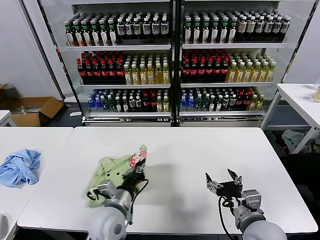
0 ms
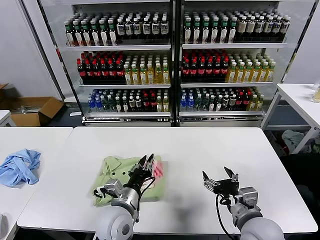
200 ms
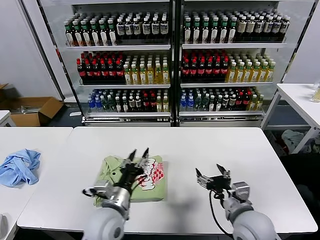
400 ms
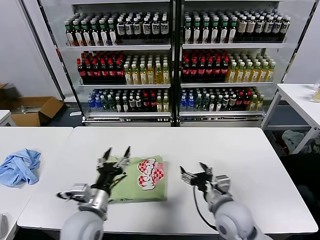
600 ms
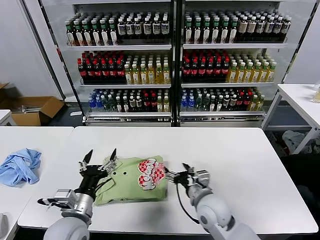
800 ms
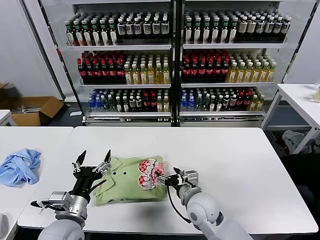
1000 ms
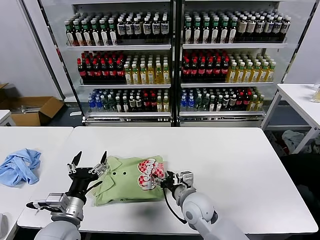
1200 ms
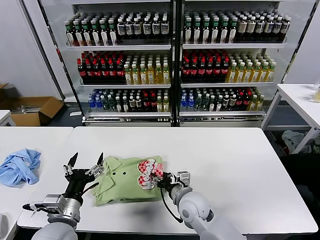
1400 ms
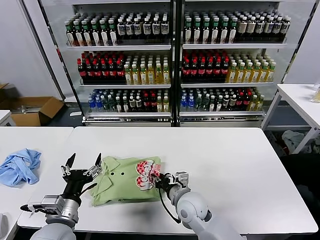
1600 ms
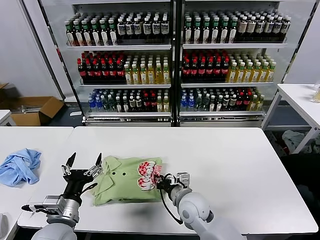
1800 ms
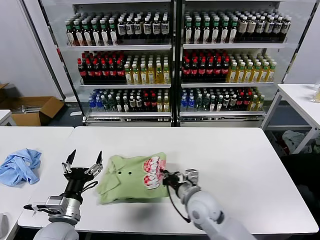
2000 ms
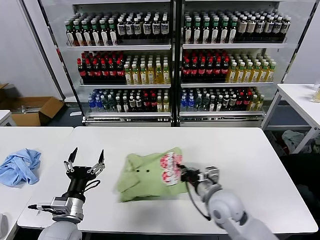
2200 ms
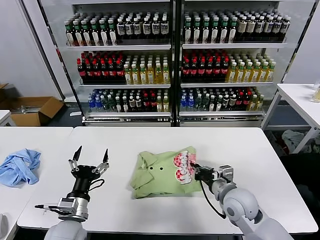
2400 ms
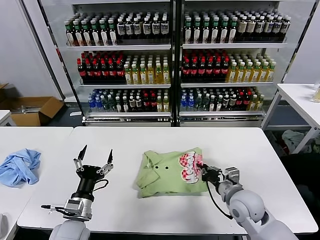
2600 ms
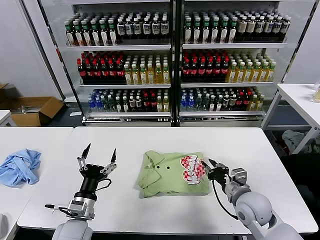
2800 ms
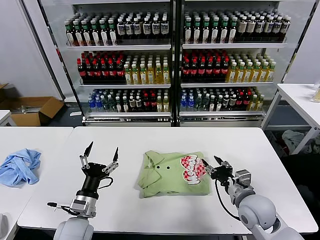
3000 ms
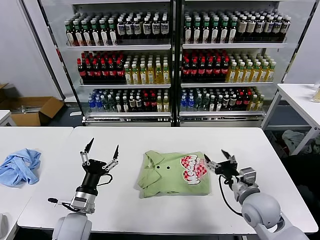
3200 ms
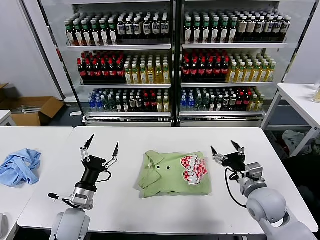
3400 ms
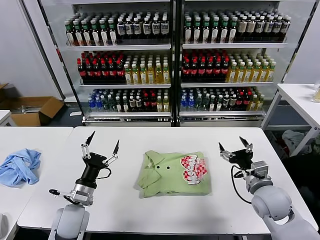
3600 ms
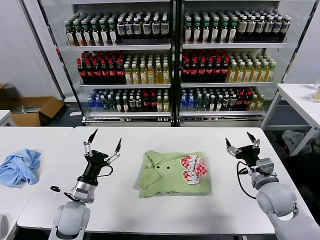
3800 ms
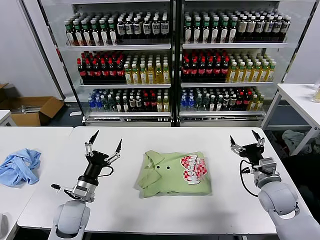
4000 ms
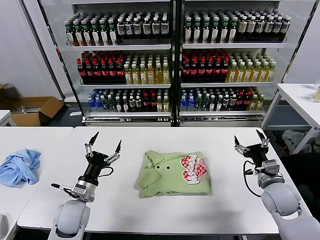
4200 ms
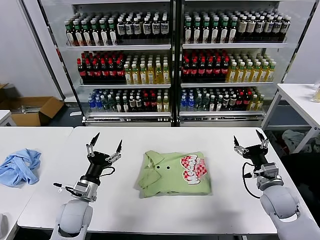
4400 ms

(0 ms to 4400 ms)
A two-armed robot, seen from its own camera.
Task of the whole recording: fold and organize the clothes.
Step, 400 ms - 2800 ms: Drag the clothes to the center of the table.
0 ms - 1400 ms: The right gripper heads to the left, forward and downward, covering some 20 cm, while the left gripper goes about 10 cm to the left, and opens up.
1400 ms - 3000 ms: The right gripper goes approximately 15 cm to the right, and closes, then opens again; the left gripper travels downward by roughly 5 cm.
3000 ms - 4400 ms: The left gripper travels forward by some 5 cm; the right gripper heads to the right, covering roughly 10 cm, and opens.

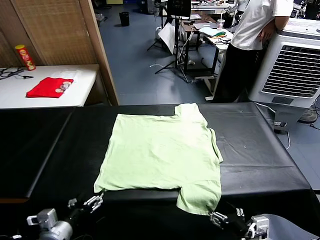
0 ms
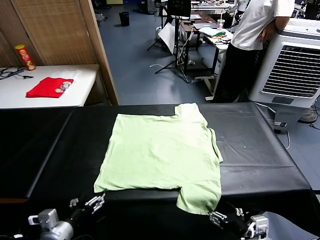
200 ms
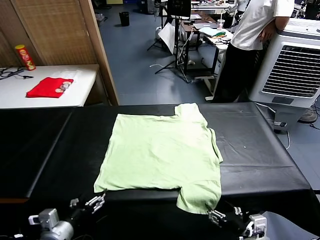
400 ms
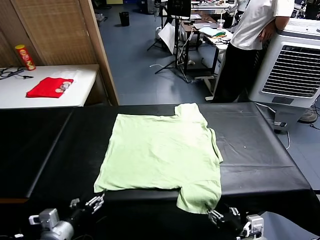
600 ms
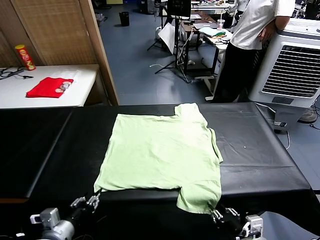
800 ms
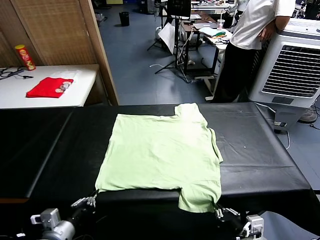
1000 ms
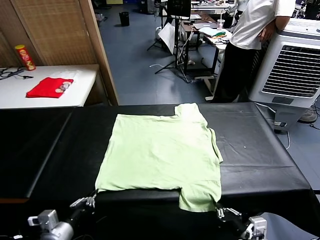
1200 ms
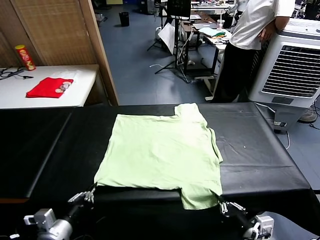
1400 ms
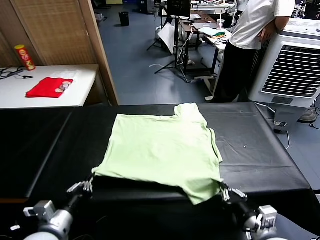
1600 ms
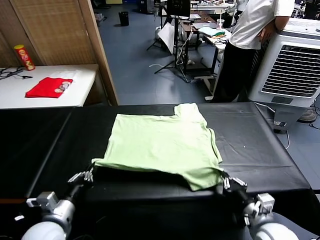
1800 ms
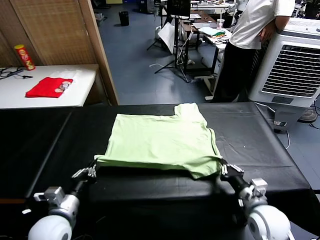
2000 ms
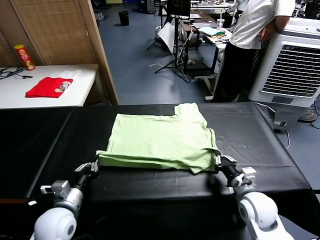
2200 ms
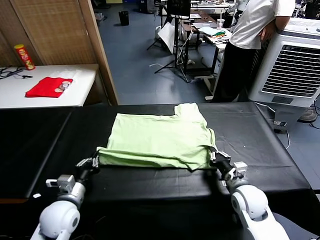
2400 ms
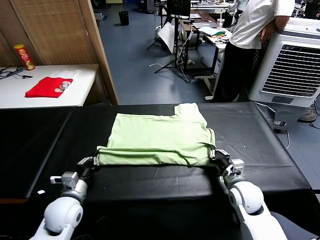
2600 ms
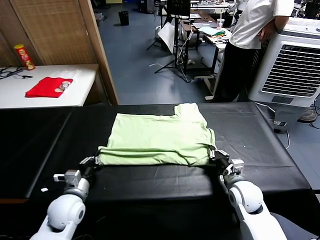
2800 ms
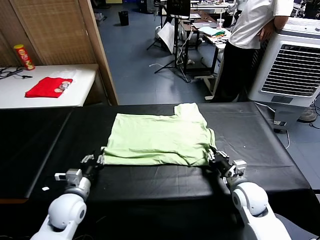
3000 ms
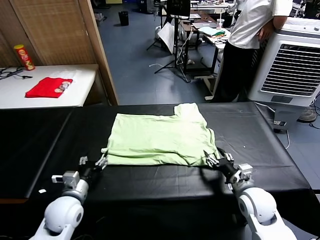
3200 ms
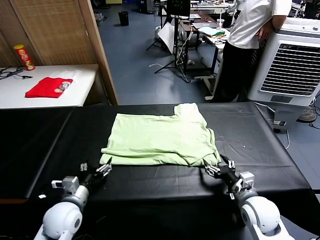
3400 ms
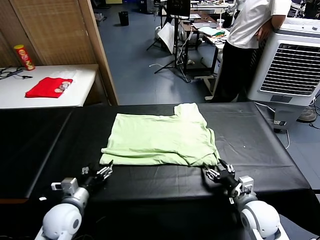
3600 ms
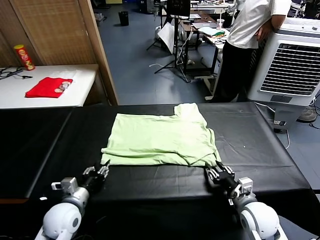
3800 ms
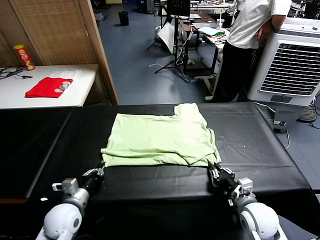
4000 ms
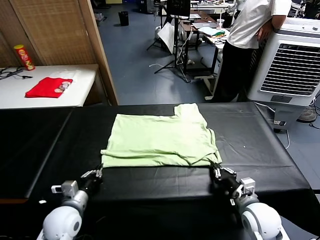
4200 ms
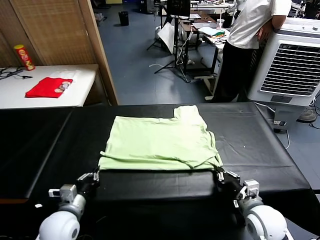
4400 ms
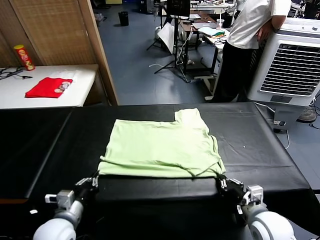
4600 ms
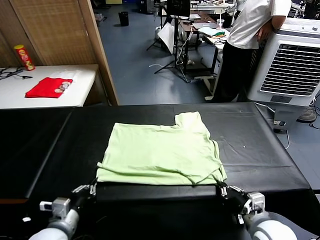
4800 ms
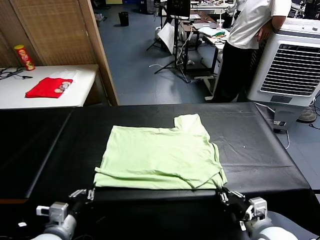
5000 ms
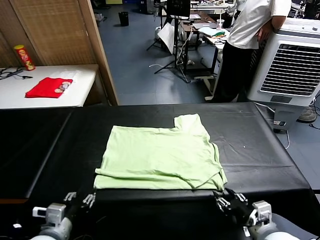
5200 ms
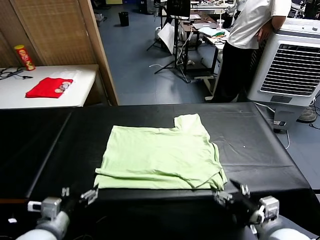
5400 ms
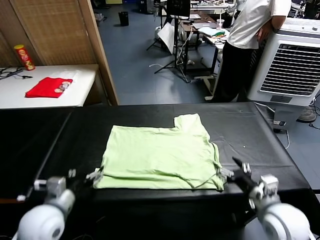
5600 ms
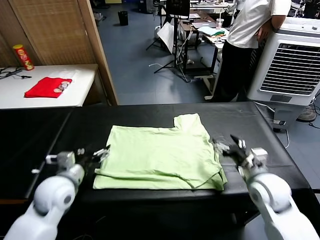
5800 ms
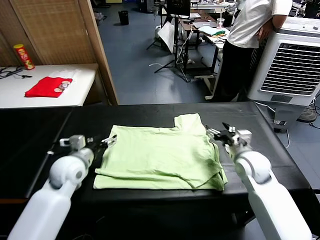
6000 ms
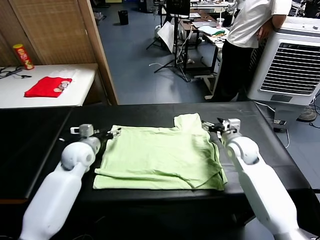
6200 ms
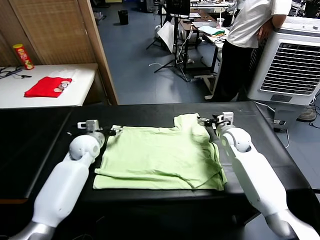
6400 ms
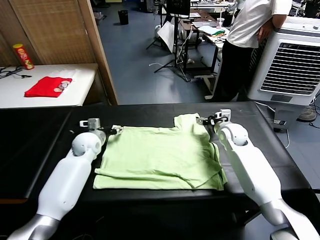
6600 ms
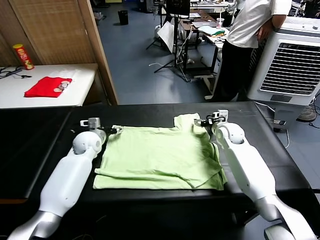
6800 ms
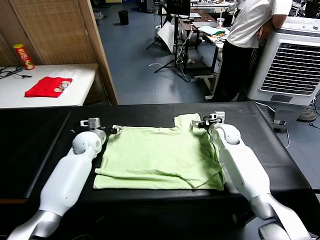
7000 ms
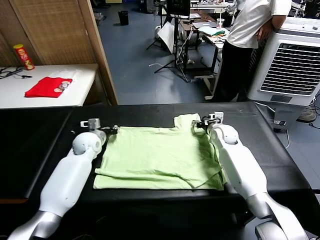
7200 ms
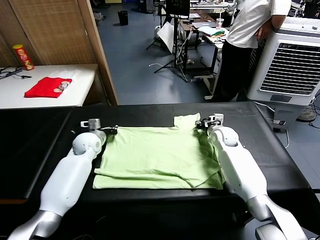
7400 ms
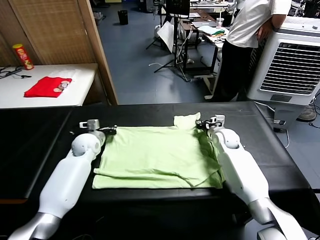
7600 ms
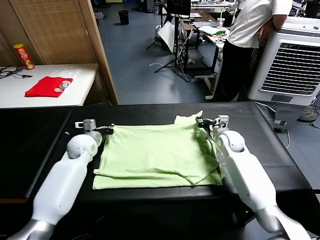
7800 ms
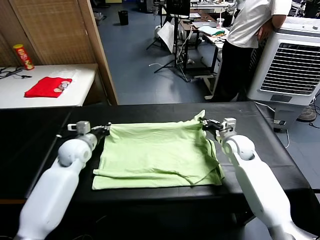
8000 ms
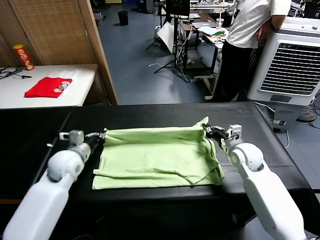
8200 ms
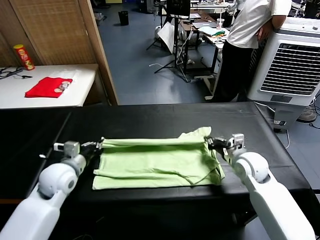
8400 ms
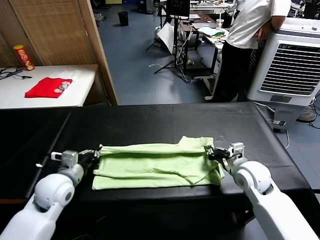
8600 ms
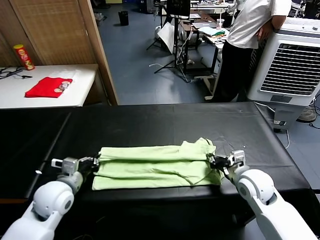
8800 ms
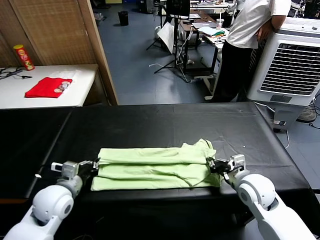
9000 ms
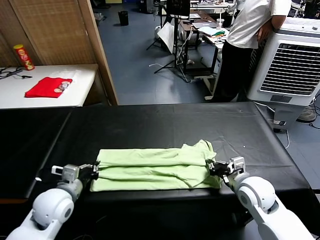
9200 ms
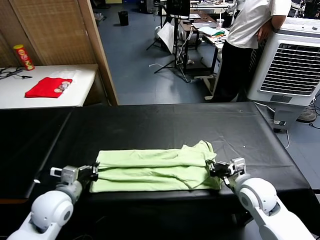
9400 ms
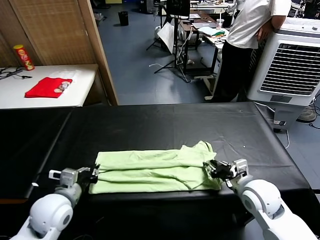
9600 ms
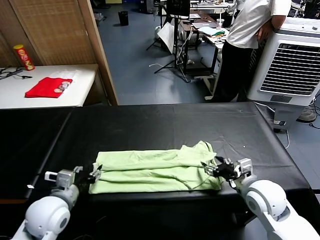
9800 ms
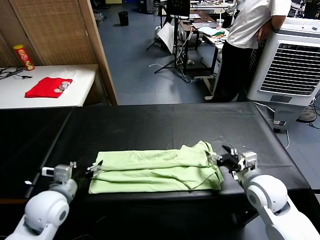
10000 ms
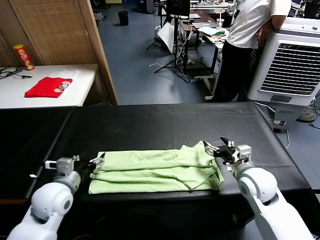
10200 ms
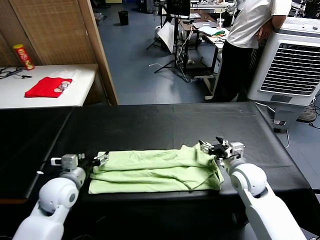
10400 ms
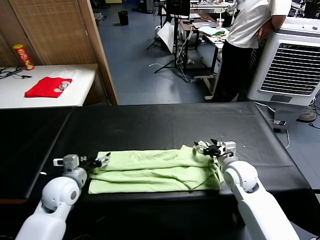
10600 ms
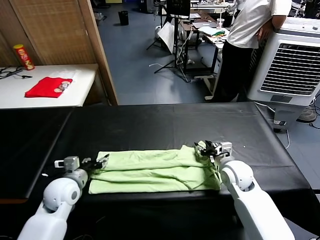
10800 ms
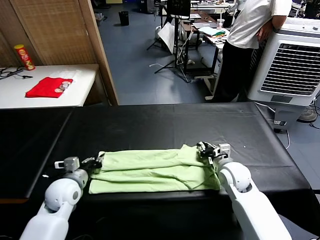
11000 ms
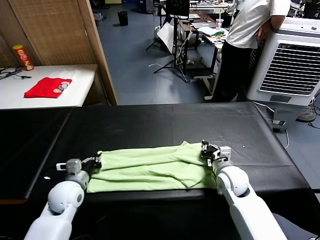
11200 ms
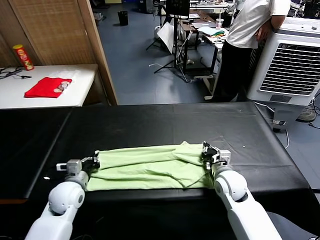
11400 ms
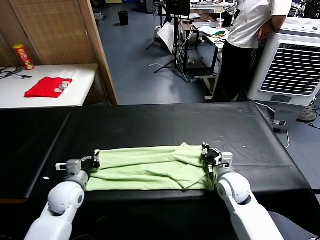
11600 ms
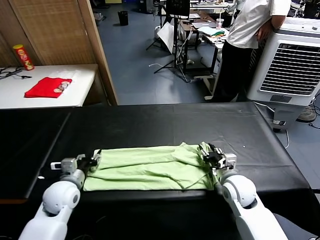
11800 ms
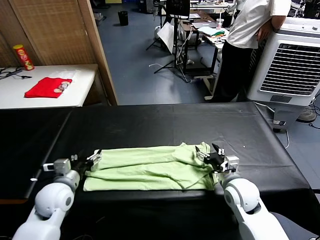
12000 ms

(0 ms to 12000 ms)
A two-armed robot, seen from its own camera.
Task of the whole recording: fold and organize the clothes.
Step, 0 ms - 1000 ms: use both grippers simultaneously to clamp the lower edge of the clothing fabric.
Step, 1200 ms - 3000 ms: use both grippers to drag the lower edge of the fabric forward and fold it over the upper edge.
Step, 3200 ms - 5200 ms: Drag the clothes downward with both gripper.
Step, 5400 ms - 7400 ms: use both grippers simultaneously to clamp the upper edge of the clothing fabric.
Step, 7600 ms - 9600 ms: use both grippers to drag the upper edge of the fabric backward and fold it over the lower edge.
1600 ms - 3000 ms: Both grippers move forward, about 10 cm. The left gripper opens, while the right gripper opens up.
3000 ms - 4400 ms: The two grippers go approximately 5 cm backward. The right gripper closes. Meanwhile the left gripper closes its fingers.
4400 ms - 6000 ms: The right gripper is displaced forward by about 20 cm, and opens its fingers. The left gripper travels forward and upward by roughly 20 cm, and opens.
6000 ms - 7600 ms: The left gripper travels forward by about 10 cm, and closes; the right gripper travels forward and downward by roughly 10 cm, and closes up.
7600 ms - 9000 ms: Both grippers travel together backward, approximately 20 cm.
9000 ms - 10400 ms: The right gripper is displaced forward by roughly 5 cm, and opens its fingers. The left gripper opens its fingers.
10400 ms - 12000 ms: The left gripper closes, then opens again. Meanwhile the right gripper moves about 5 cm, and closes, then opens again.

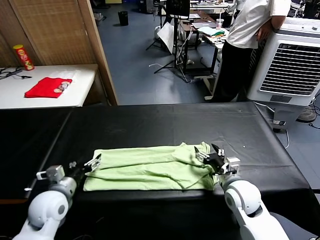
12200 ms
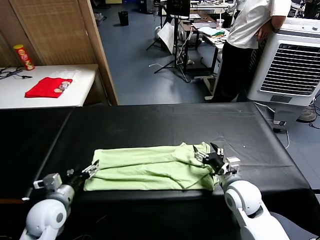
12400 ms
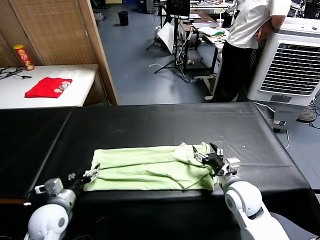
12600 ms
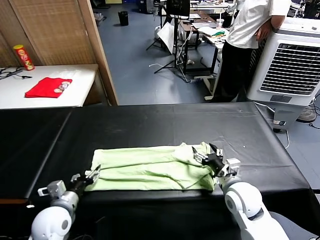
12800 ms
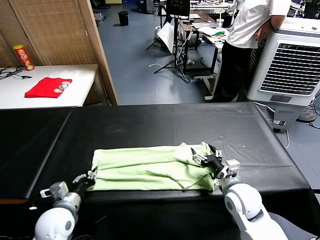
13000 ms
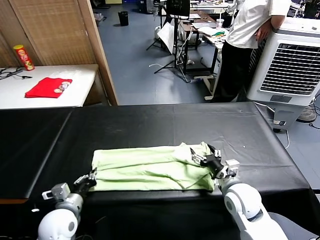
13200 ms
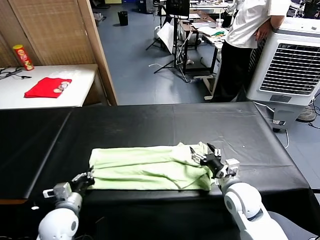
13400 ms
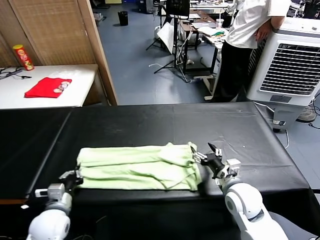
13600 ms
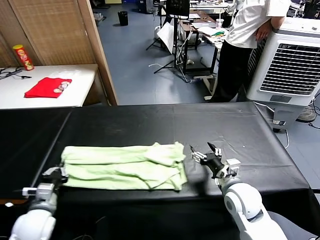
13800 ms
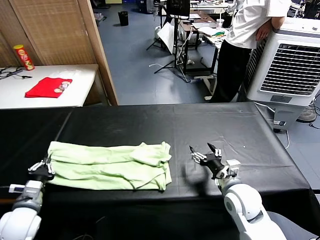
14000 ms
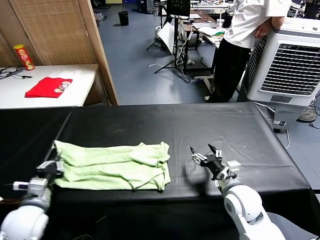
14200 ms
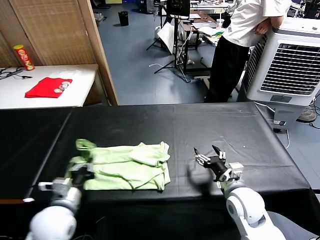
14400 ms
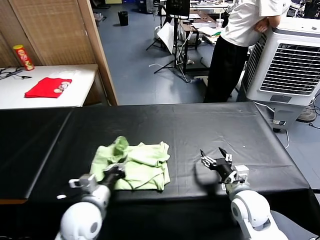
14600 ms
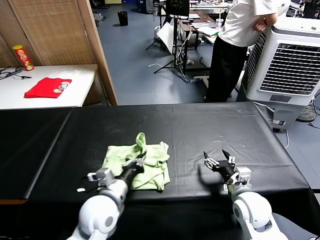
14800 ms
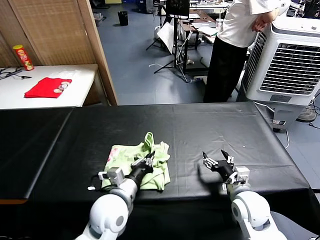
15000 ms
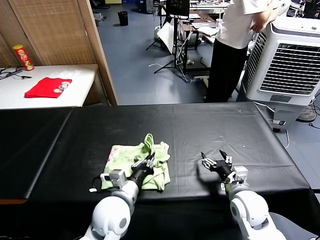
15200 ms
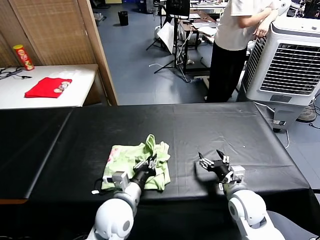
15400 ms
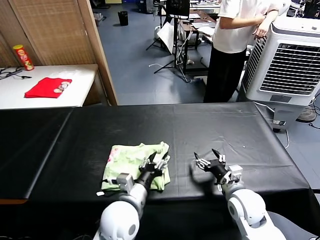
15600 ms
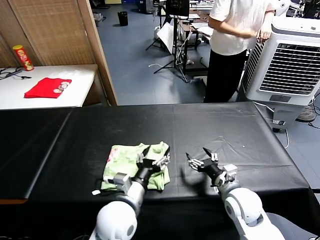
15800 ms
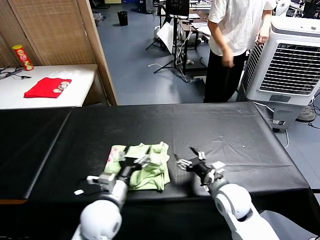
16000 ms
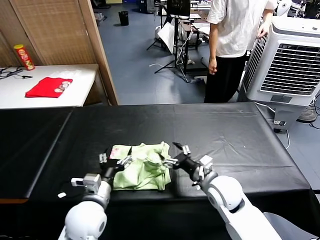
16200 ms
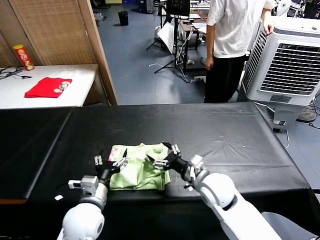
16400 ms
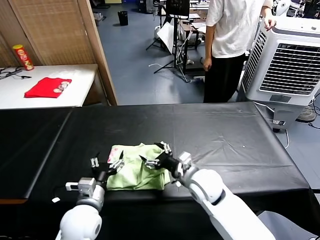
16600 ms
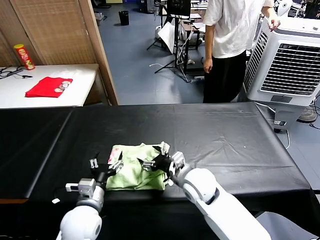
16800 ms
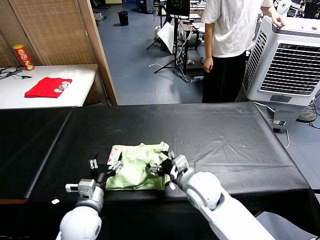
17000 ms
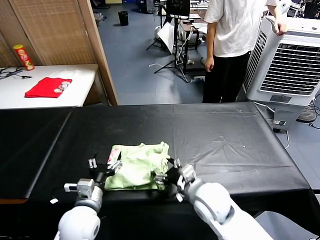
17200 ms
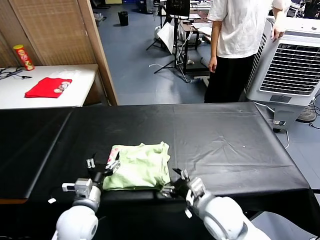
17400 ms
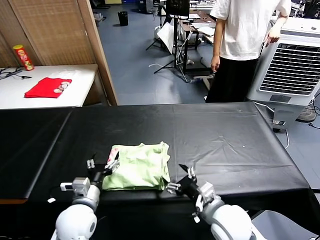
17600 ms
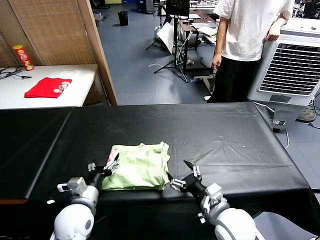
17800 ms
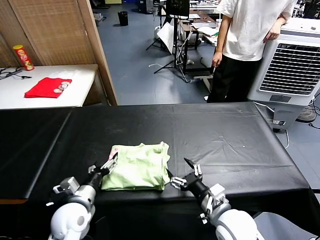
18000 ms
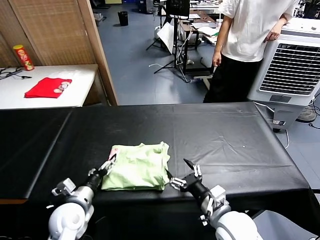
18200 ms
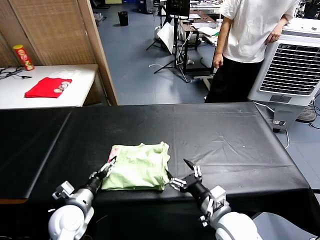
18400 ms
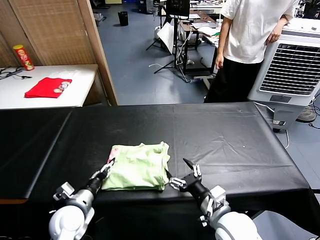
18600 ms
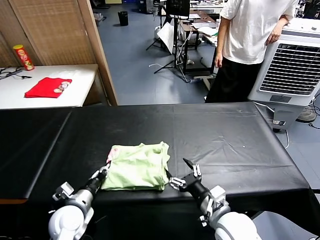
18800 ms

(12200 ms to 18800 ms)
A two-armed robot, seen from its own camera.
Task of the whole recording: fold and organize the clothes.
Step, 13400 ms - 15600 ms: use the left gripper to drag the left edge of the fabric to the left and folds it over the right edge.
12200 ms - 13800 ms: The left gripper shifts by about 5 cm, and closes up.
13800 ms - 15400 ms: The left gripper is displaced to the right by some 25 cm.
15400 ms - 17200 ms: Both grippers move to the left, roughly 10 cm. The left gripper opens.
17200 ms - 18800 ms: The left gripper moves to the left and downward, some 10 cm, and closes its fingers. Meanwhile the right gripper goes approximately 5 cm backward.
